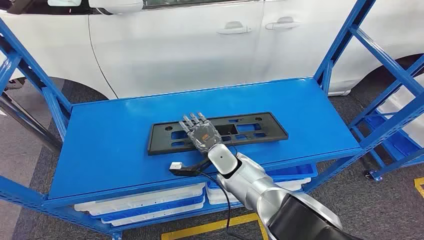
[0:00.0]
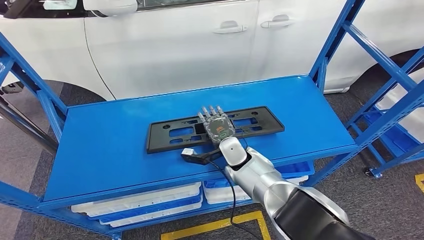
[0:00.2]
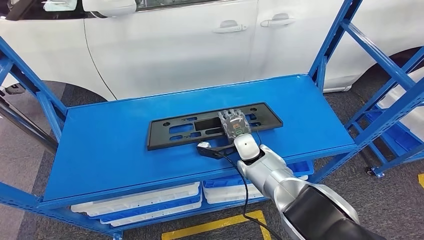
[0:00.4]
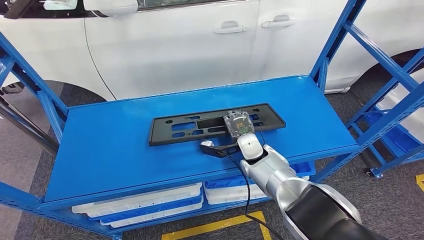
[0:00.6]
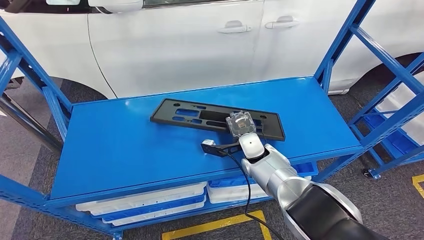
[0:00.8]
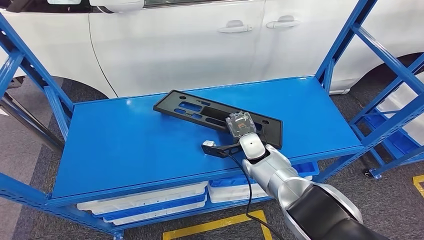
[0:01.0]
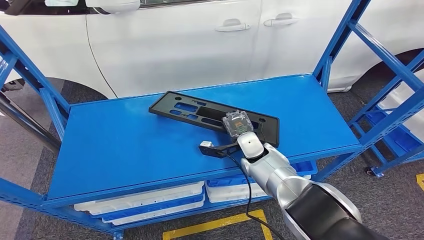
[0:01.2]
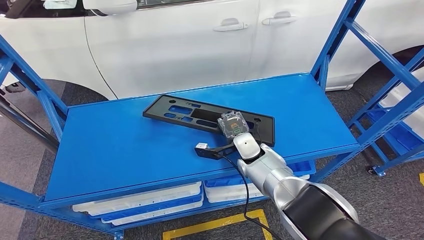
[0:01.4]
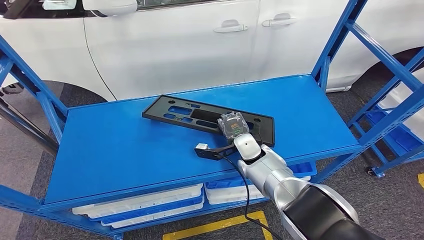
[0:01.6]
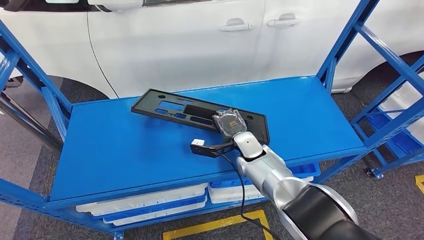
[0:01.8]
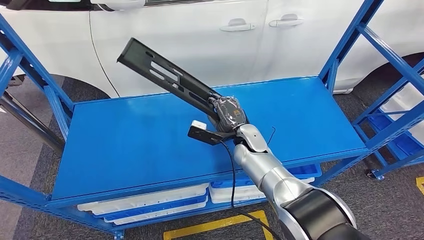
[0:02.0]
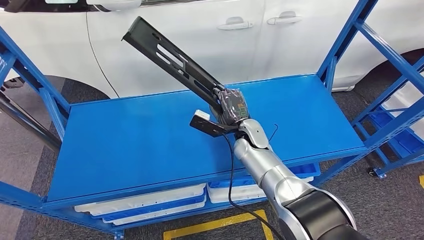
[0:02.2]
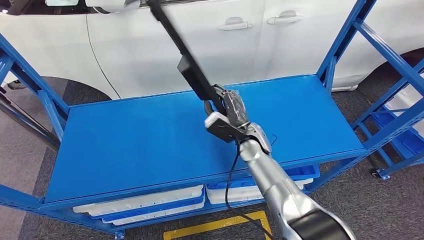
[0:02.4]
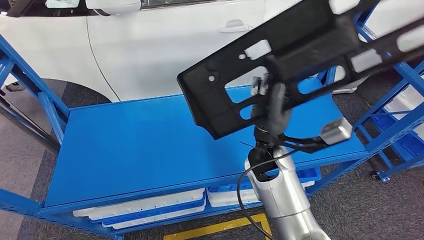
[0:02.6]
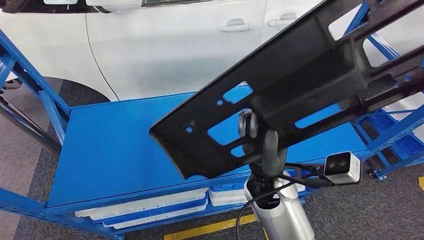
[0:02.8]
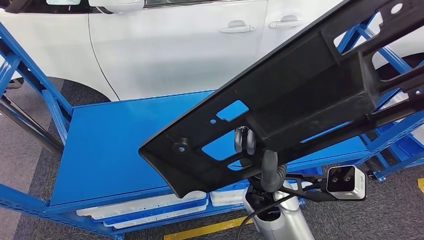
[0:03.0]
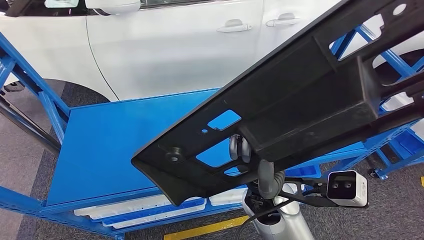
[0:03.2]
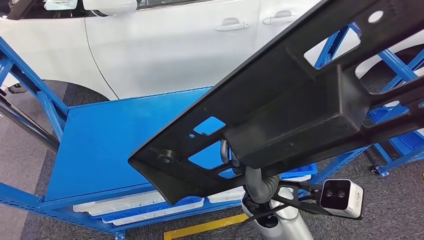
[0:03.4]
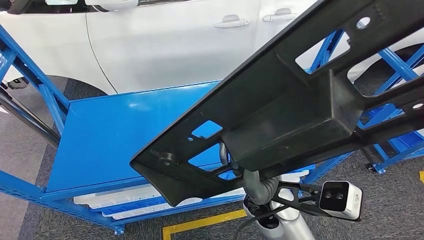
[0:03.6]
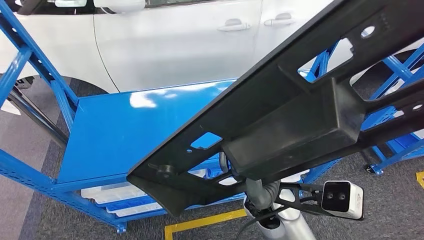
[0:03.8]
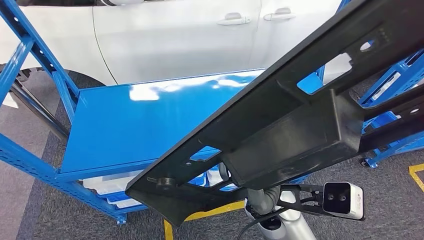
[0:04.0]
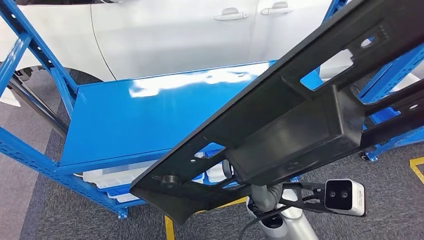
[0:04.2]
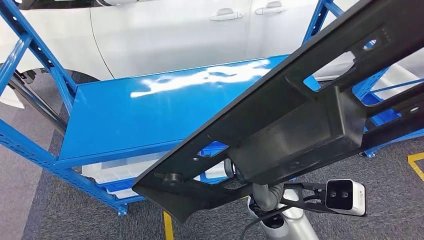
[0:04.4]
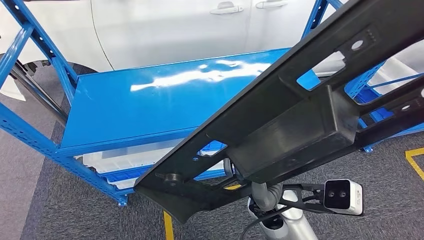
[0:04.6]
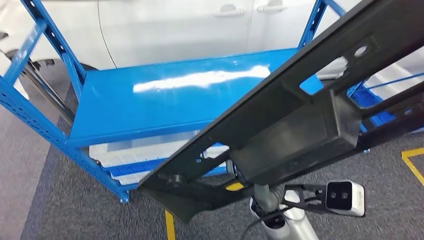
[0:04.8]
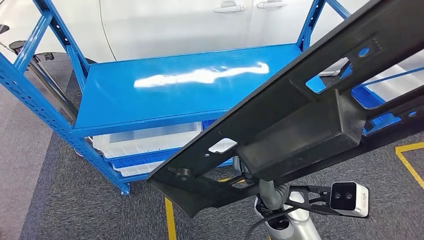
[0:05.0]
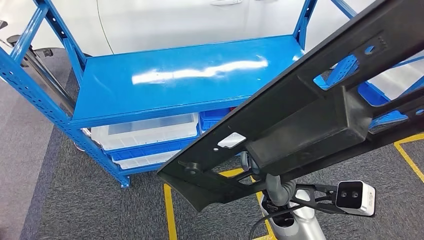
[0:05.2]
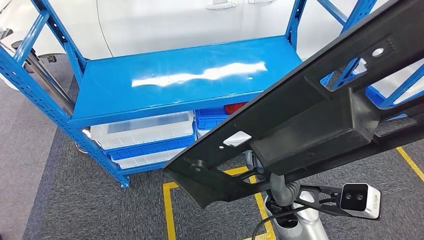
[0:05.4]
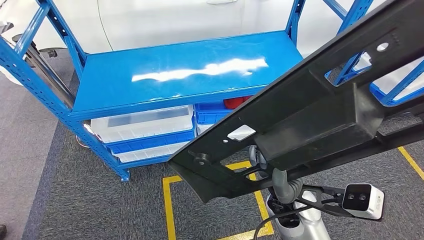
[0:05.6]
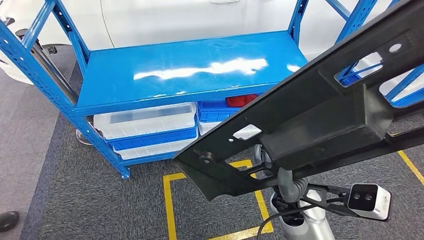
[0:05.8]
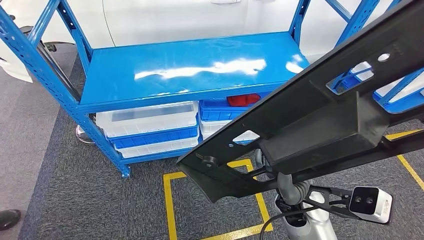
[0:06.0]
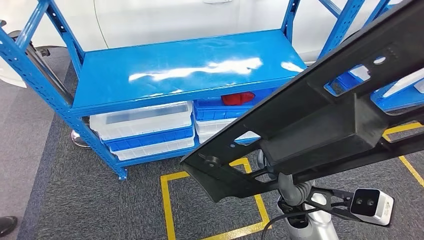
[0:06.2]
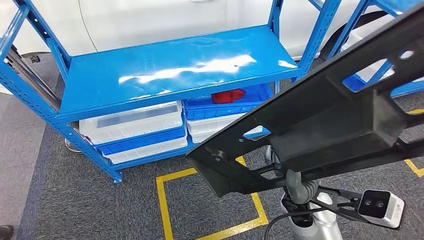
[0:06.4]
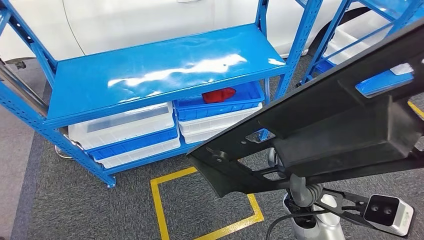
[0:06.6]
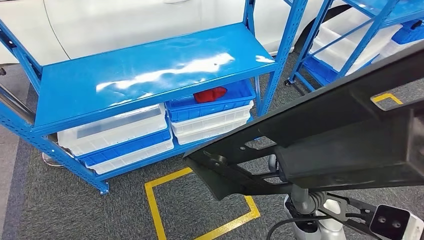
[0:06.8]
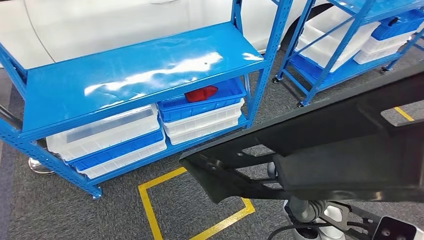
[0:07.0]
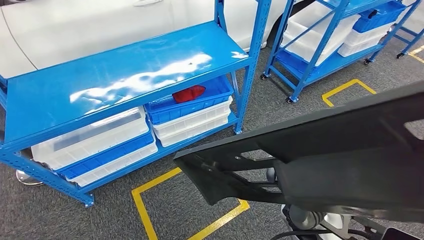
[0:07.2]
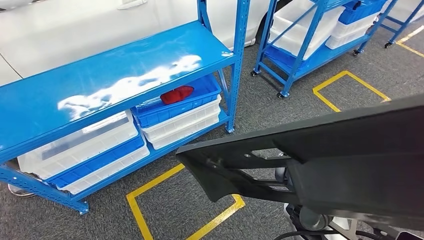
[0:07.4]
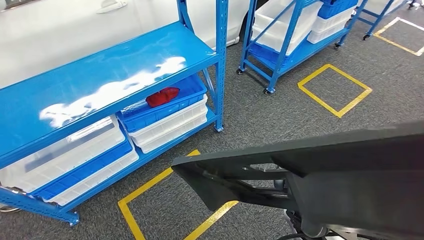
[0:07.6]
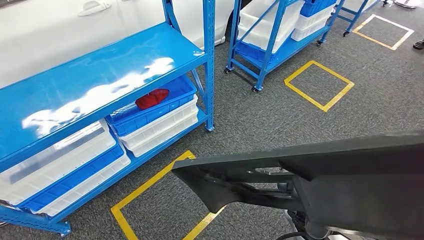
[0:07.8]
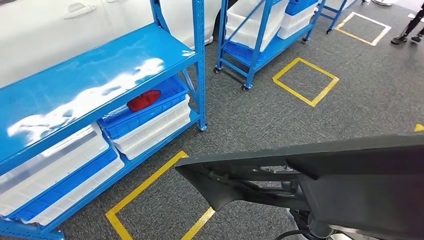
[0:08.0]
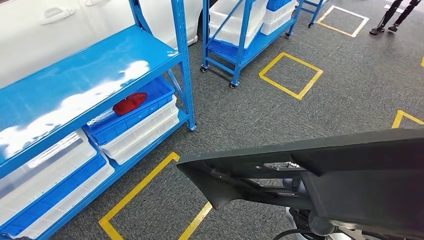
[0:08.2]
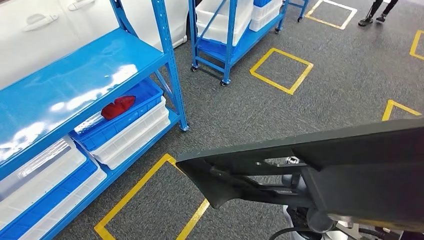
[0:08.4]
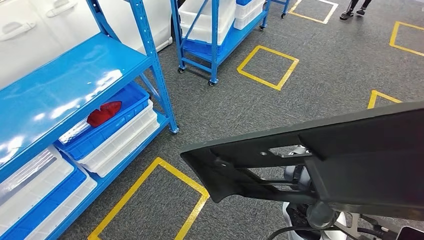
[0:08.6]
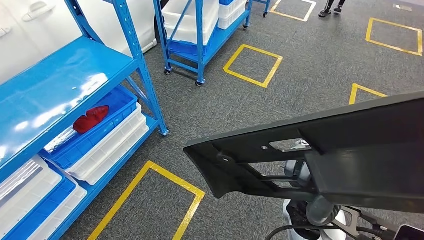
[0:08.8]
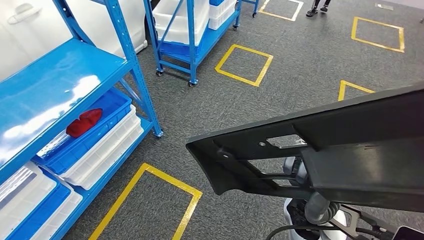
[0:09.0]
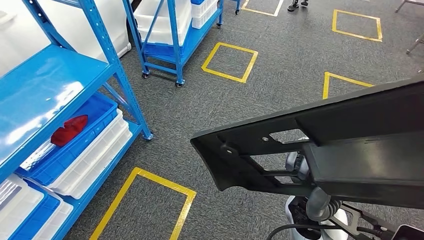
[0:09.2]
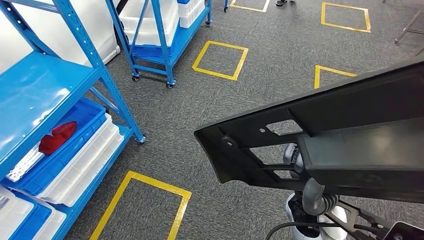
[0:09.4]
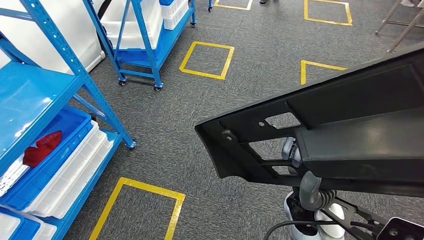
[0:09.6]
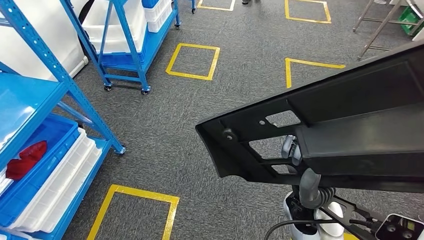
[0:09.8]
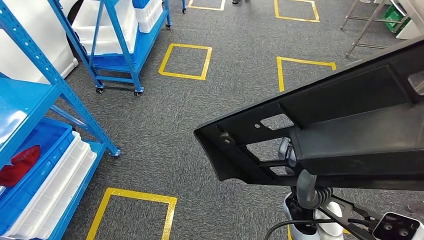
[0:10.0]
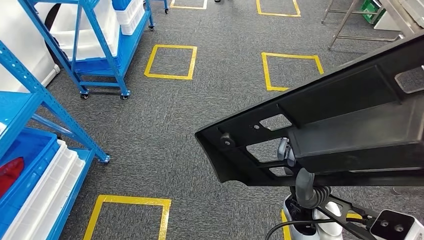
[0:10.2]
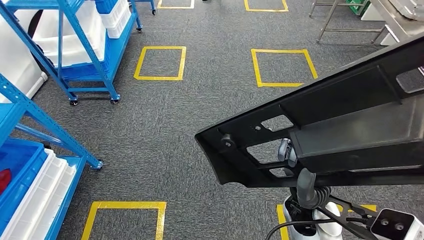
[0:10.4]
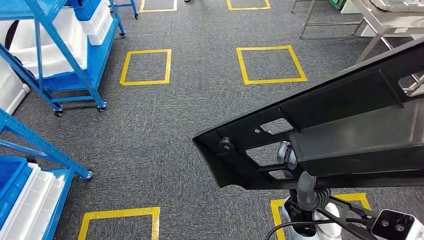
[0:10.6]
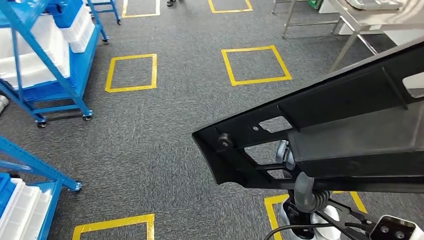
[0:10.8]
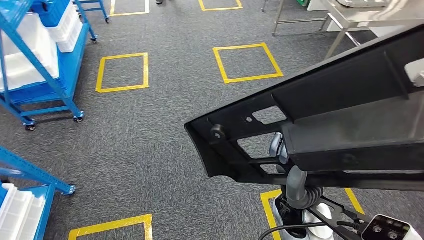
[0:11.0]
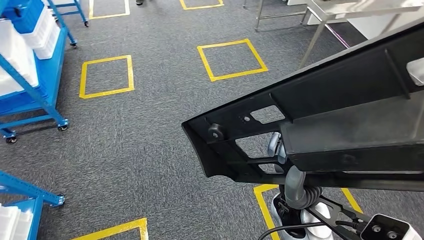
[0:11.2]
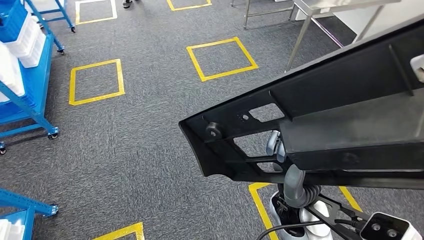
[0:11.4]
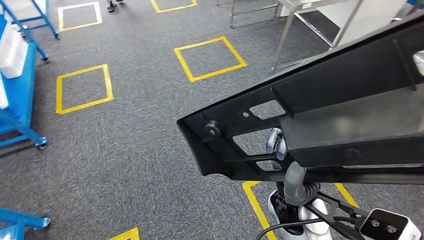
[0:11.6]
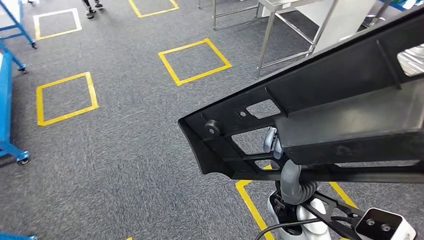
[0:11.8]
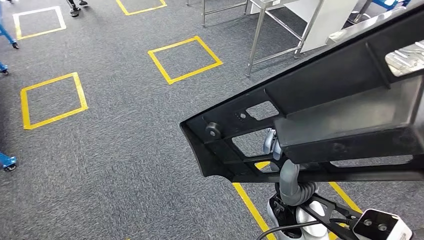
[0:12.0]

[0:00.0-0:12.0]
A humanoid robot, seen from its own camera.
Step, 0:00.0 to 0:03.2: Pick up the large material from the shelf.

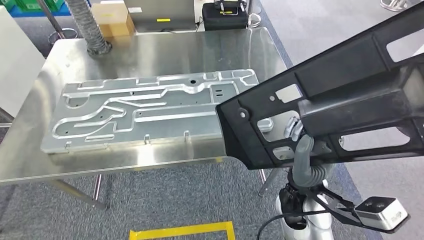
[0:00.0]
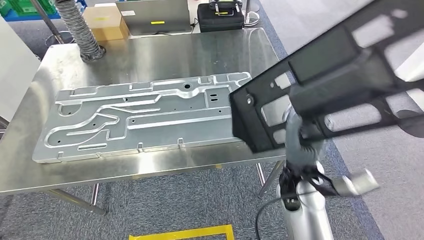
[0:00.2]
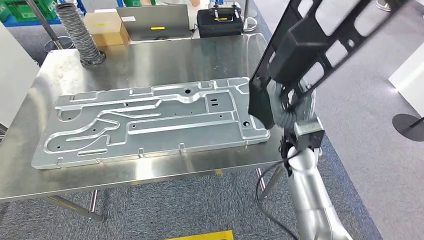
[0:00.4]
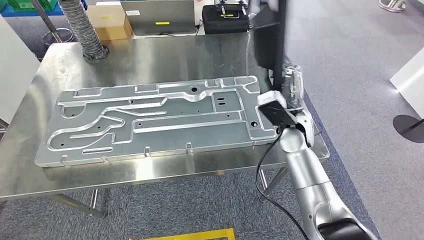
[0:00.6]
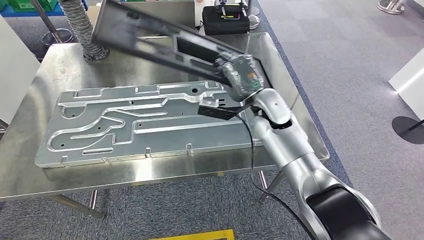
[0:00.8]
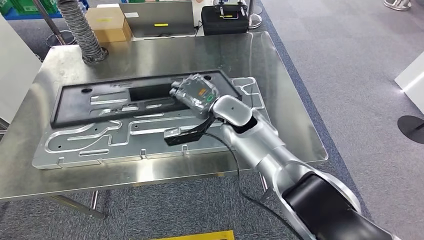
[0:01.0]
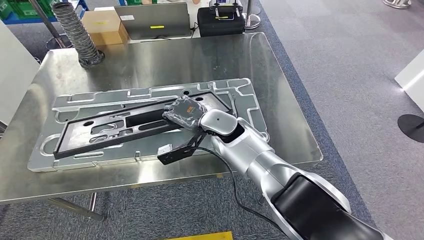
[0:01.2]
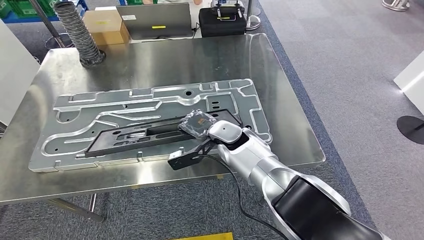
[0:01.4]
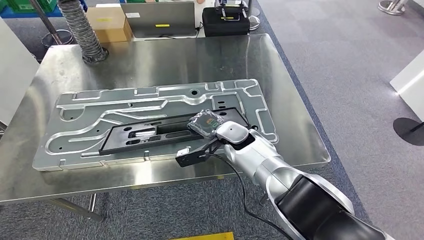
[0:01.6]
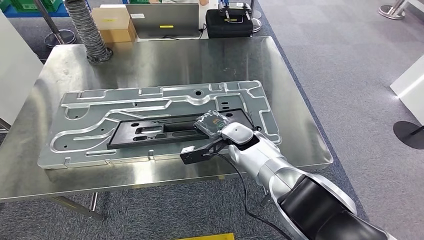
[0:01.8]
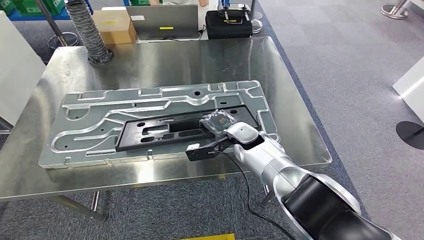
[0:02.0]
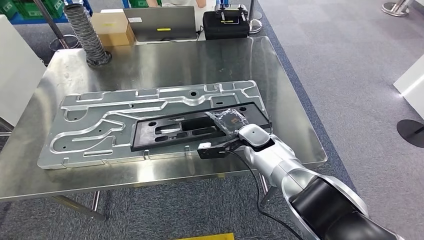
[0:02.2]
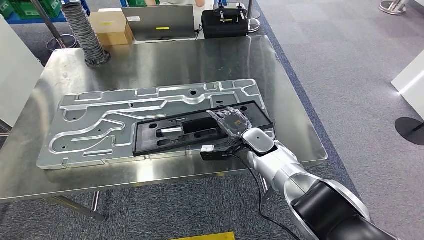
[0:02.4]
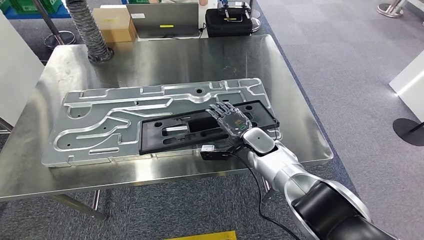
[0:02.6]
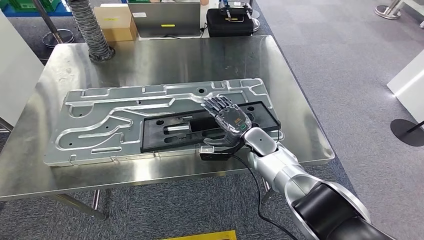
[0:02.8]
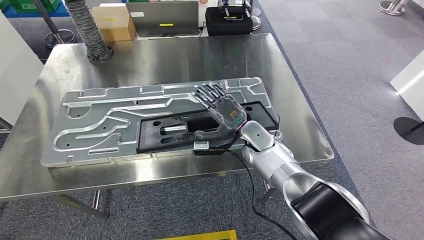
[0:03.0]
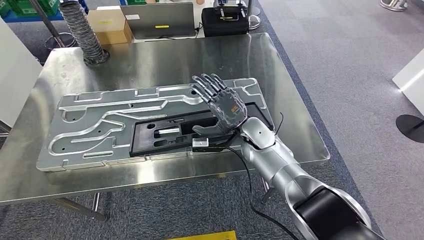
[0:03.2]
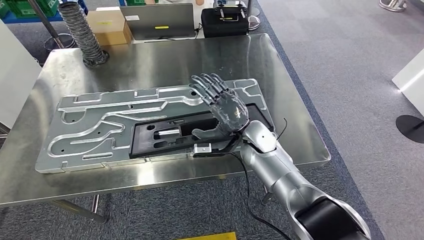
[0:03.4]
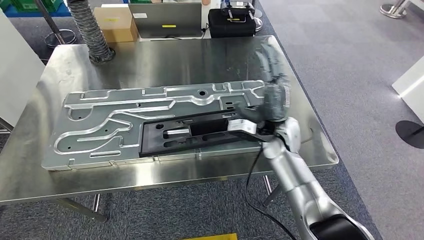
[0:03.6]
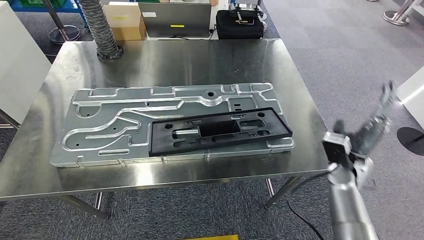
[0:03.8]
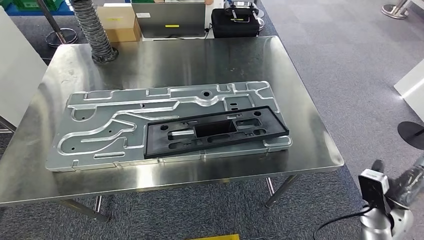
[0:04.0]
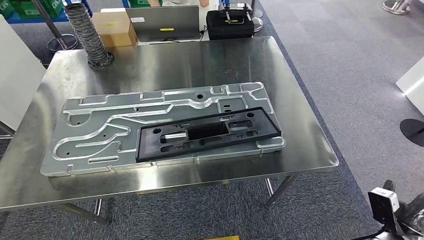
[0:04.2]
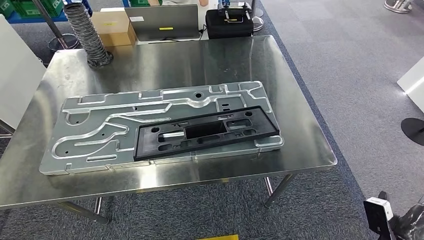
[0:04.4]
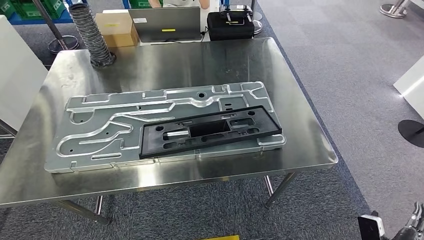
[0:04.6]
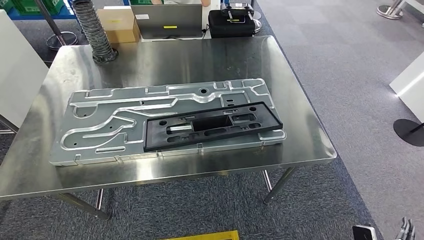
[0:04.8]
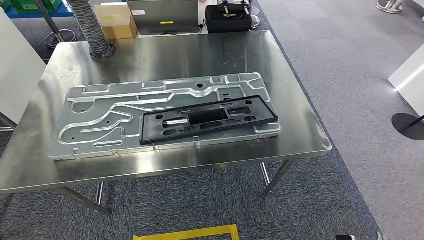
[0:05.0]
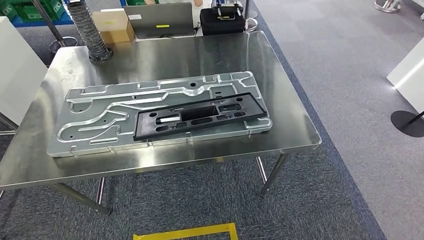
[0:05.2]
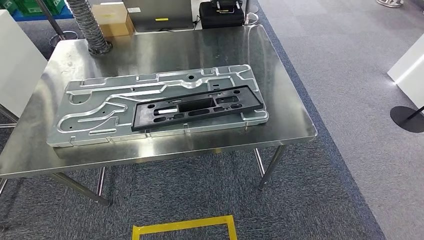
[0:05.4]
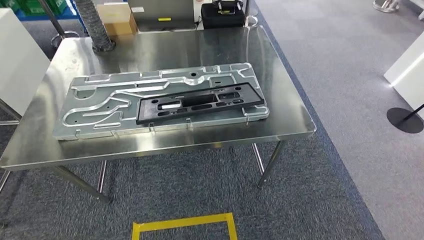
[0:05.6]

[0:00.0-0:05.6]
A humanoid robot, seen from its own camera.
Step, 0:00.6 to 0:03.0: Insert the large material into the corresponding slot on the workbench.
